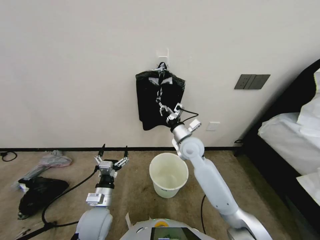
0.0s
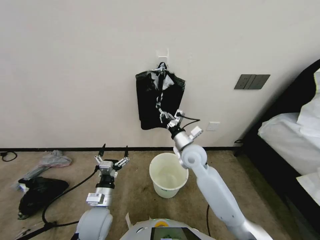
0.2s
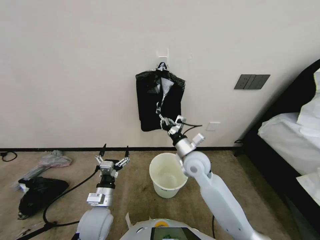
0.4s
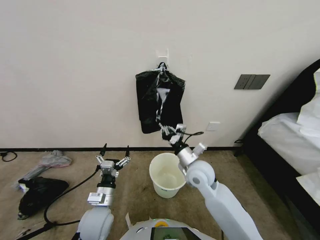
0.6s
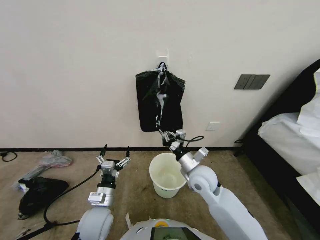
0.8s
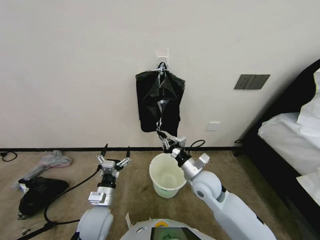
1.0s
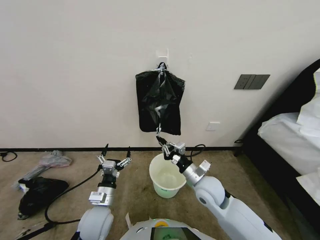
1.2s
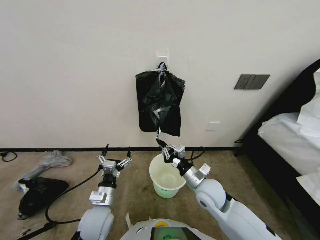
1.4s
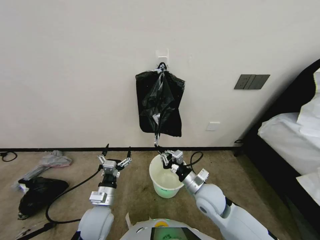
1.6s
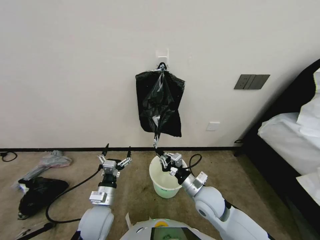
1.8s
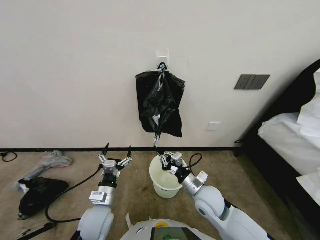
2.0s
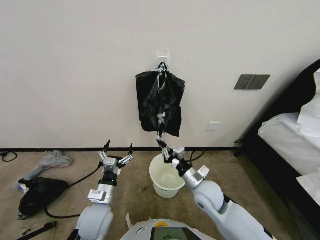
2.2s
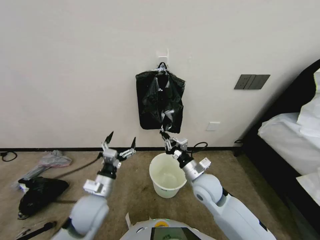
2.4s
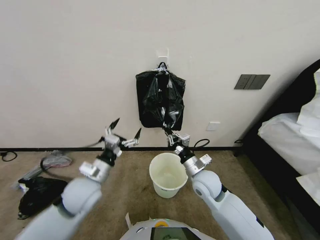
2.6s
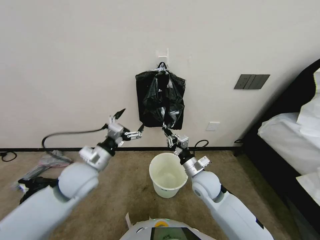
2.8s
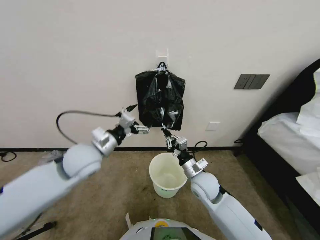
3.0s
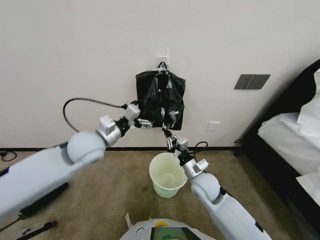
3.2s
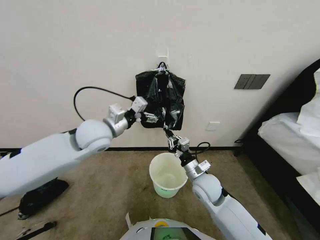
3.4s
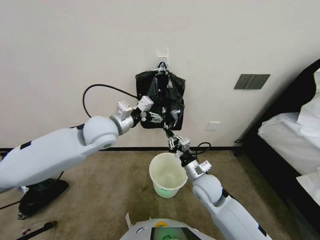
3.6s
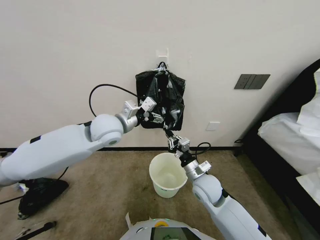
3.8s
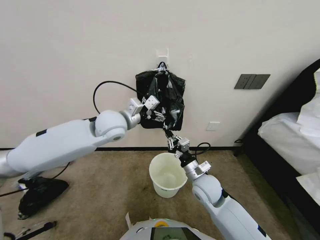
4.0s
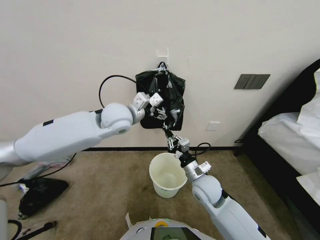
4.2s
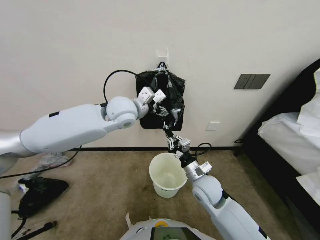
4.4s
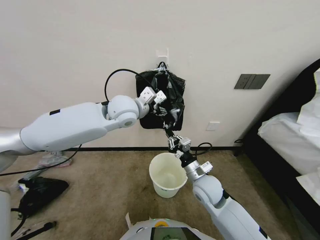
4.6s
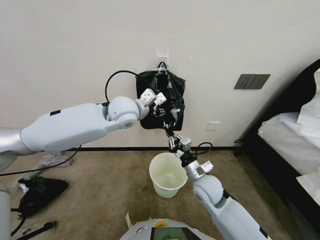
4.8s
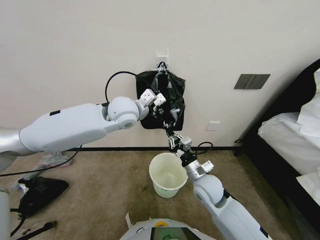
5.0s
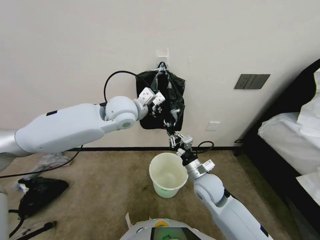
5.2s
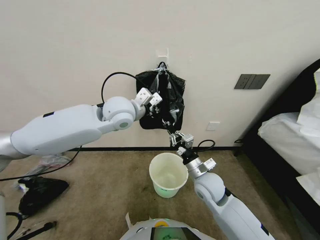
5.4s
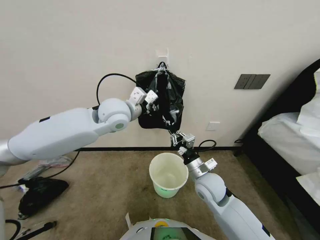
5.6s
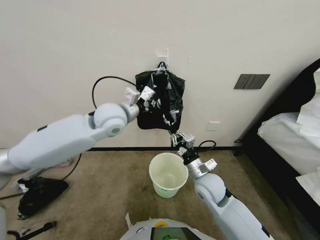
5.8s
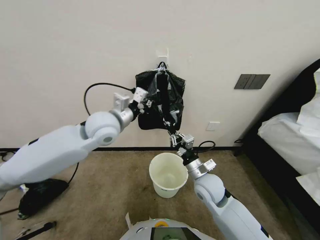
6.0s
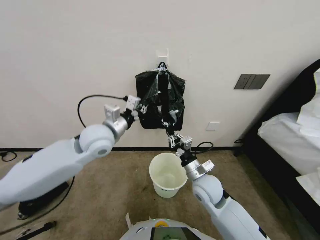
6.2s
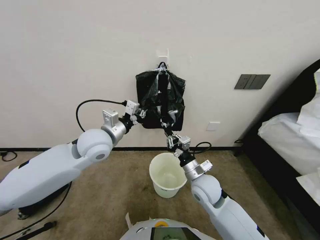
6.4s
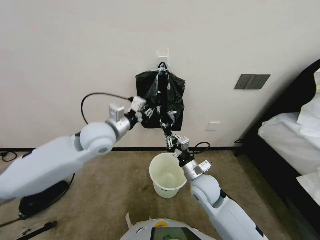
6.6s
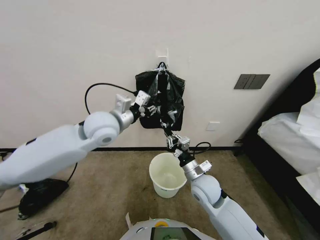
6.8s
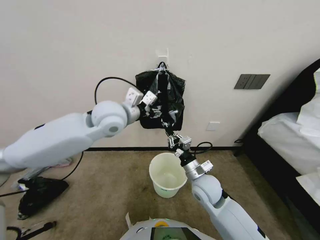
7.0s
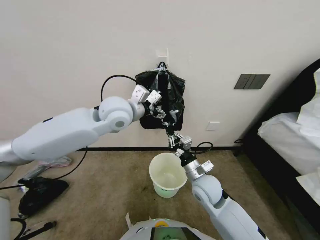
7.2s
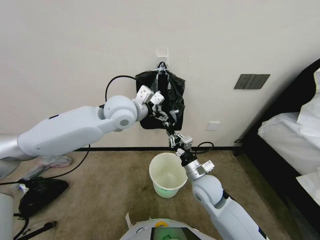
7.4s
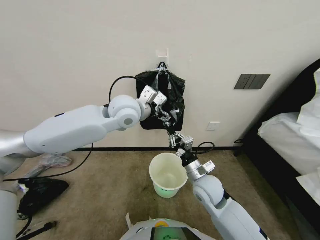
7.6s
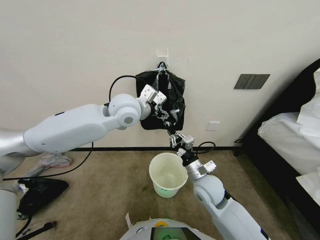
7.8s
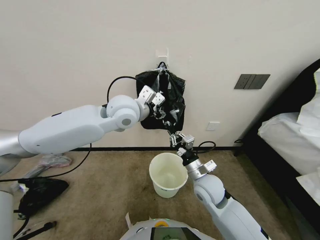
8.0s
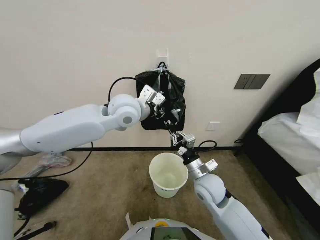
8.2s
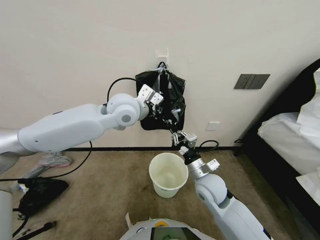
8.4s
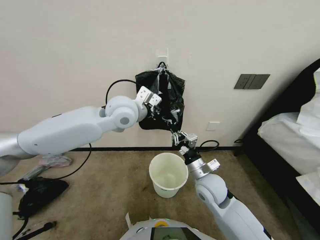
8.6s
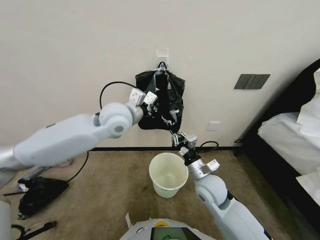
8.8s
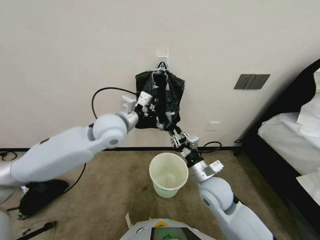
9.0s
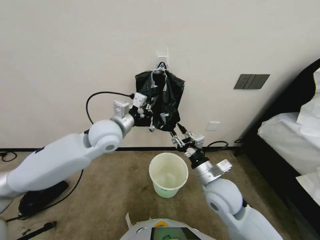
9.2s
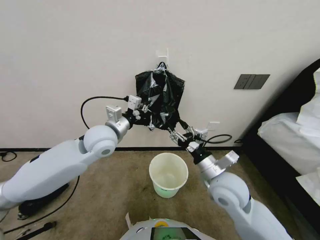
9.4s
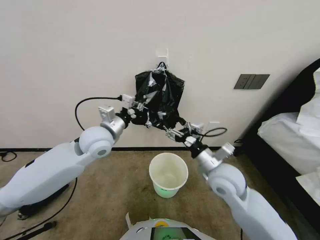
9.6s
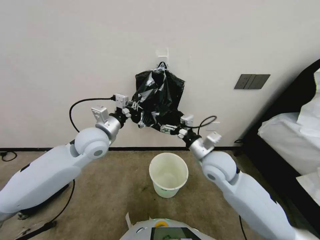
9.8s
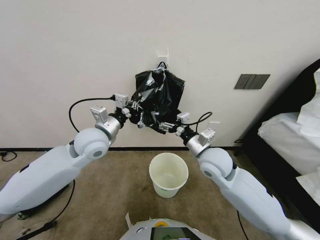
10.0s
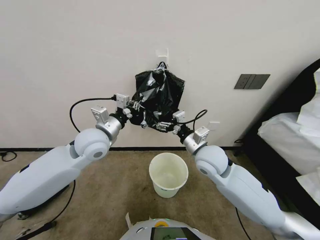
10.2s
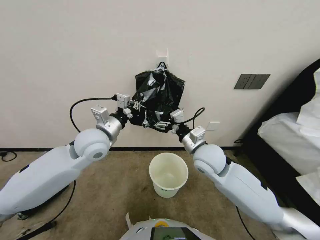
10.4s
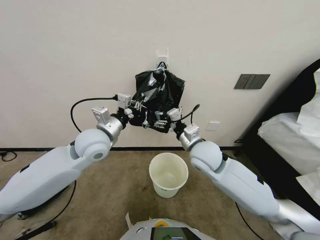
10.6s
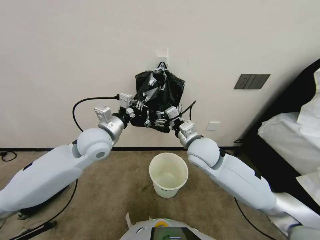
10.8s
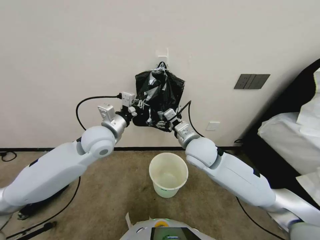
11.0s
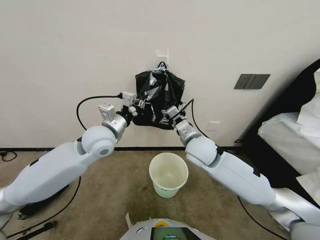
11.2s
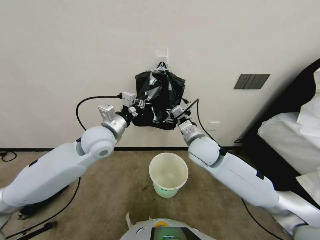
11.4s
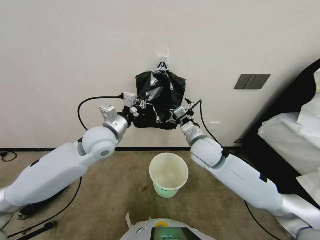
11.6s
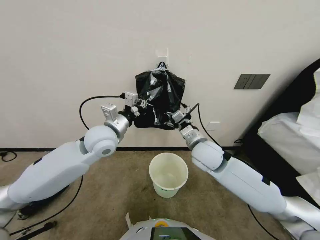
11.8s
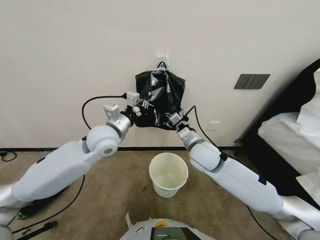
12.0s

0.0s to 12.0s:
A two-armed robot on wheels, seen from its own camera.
Task of the whole recording: Place a trash bag onto the trash bin.
0.0s to 1.6s: The right gripper goes some 20 cm backward and downward.
1.6s to 3.0s: The left gripper moves upward and forward, some 20 cm.
3.0s to 4.4s: The left gripper travels forward, to the right and upward by about 20 cm.
4.4s to 6.0s: The left gripper changes place by some 5 cm, and closes.
6.0s to 7.6s: The left gripper is displaced to the right by about 5 cm, and opens.
7.6s to 9.0s: The left gripper moves about 5 cm, and closes up.
9.0s to 10.4s: The left gripper heads to the left, covering roughly 5 cm. Meanwhile the right gripper travels upward and forward by about 10 cm, and opens up.

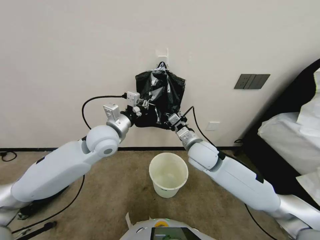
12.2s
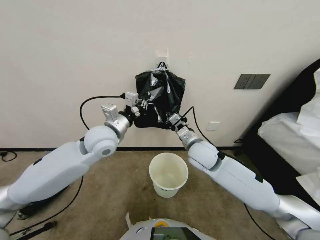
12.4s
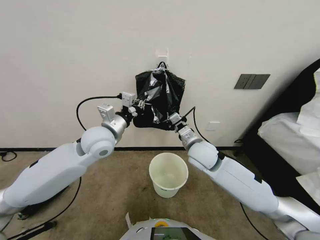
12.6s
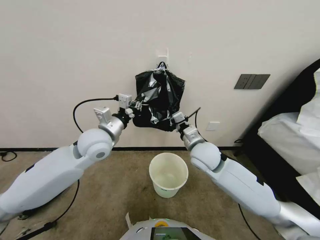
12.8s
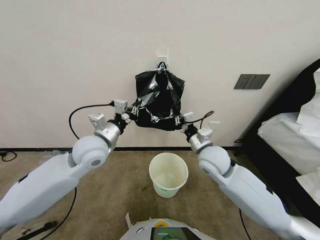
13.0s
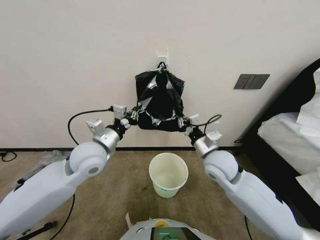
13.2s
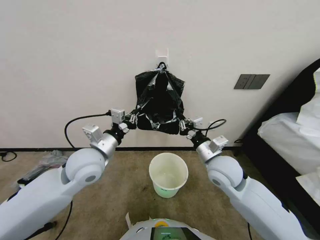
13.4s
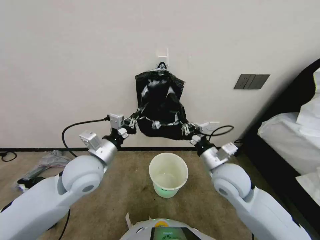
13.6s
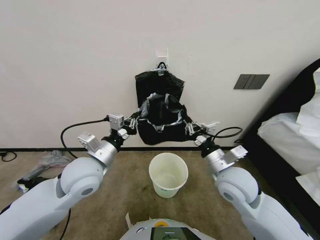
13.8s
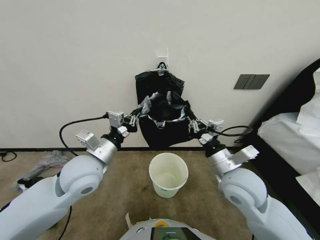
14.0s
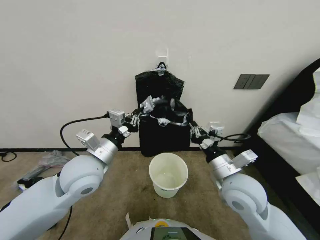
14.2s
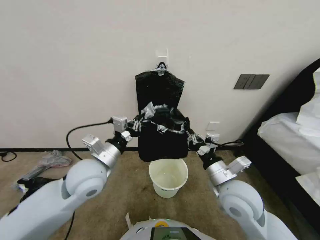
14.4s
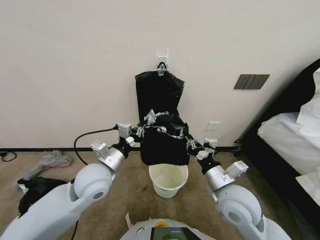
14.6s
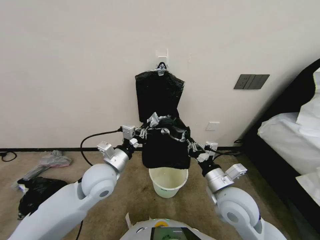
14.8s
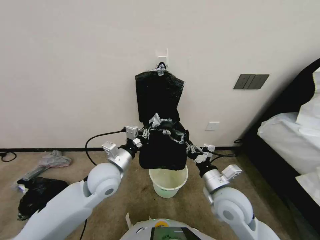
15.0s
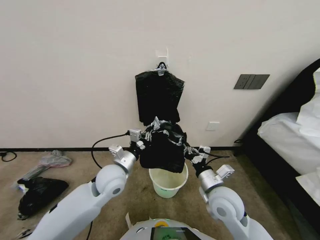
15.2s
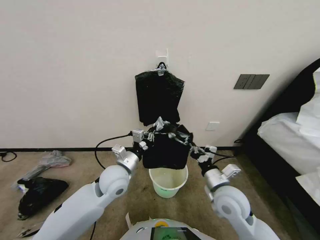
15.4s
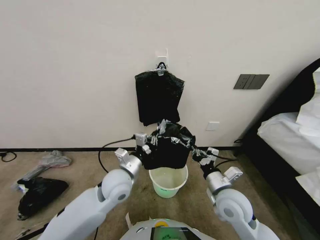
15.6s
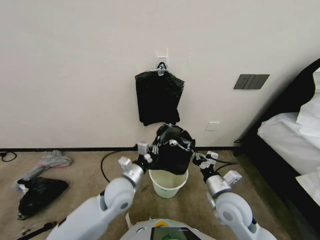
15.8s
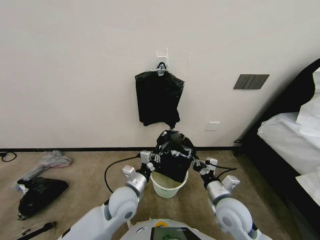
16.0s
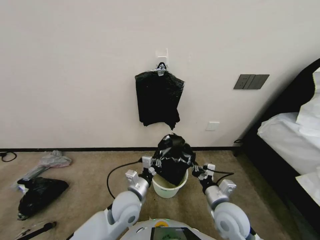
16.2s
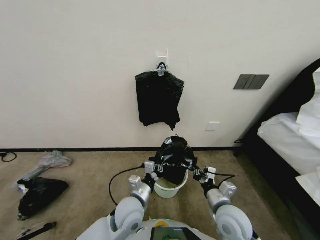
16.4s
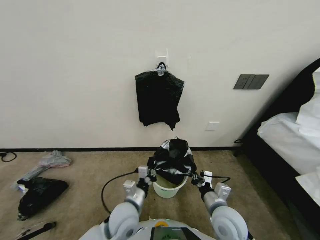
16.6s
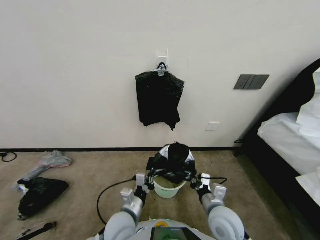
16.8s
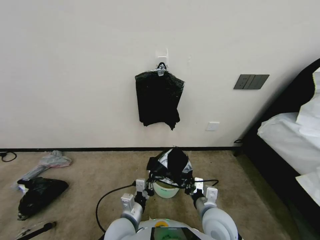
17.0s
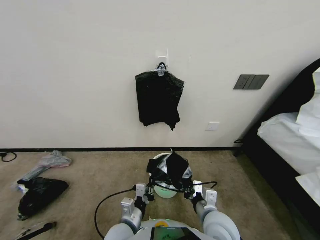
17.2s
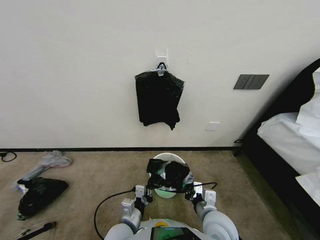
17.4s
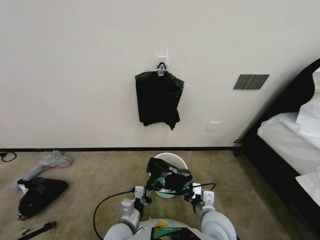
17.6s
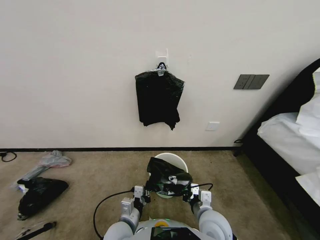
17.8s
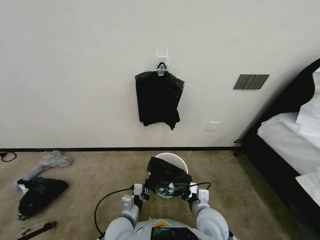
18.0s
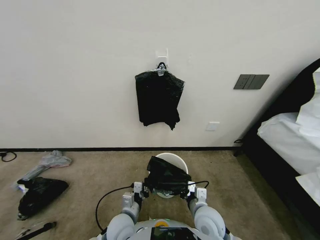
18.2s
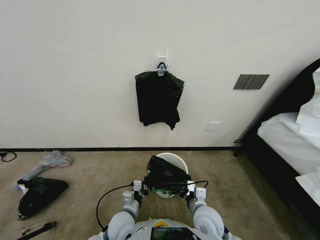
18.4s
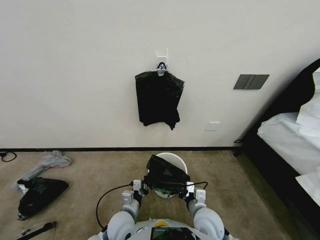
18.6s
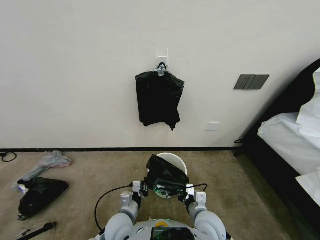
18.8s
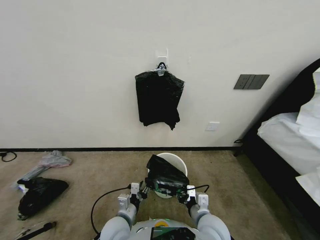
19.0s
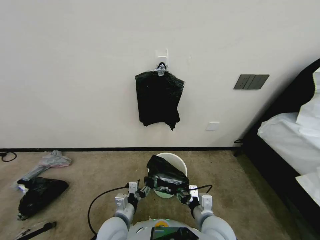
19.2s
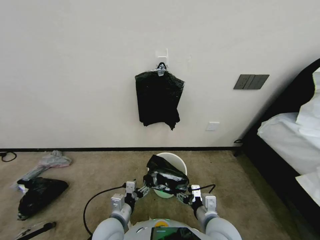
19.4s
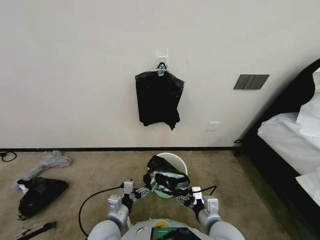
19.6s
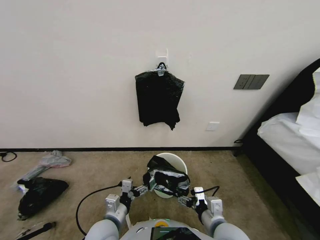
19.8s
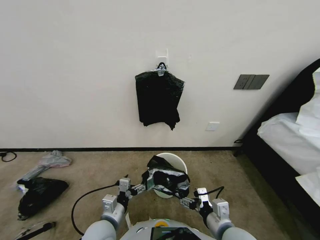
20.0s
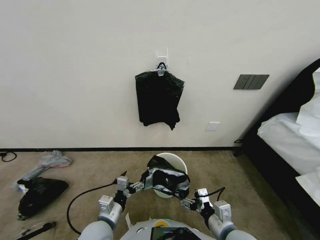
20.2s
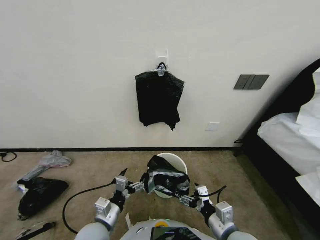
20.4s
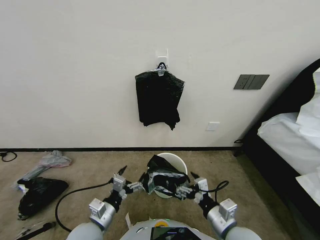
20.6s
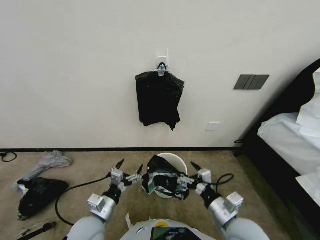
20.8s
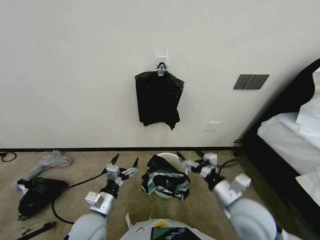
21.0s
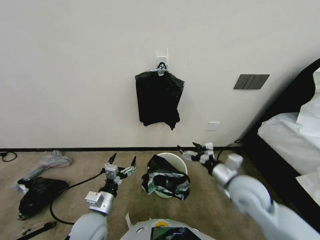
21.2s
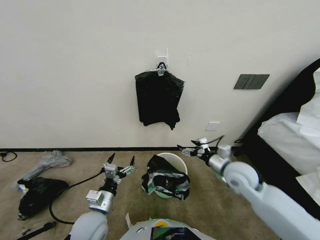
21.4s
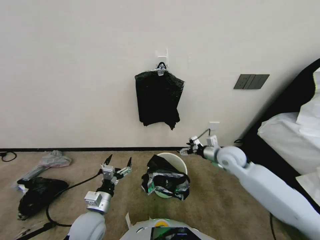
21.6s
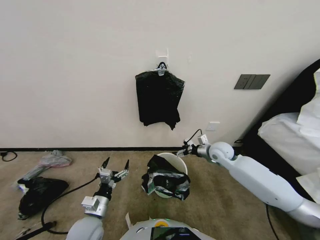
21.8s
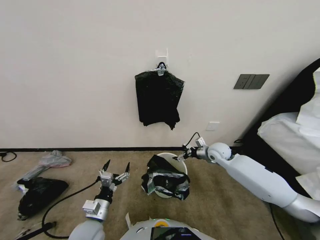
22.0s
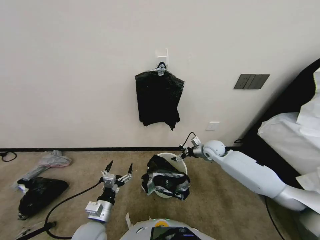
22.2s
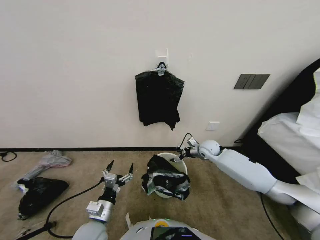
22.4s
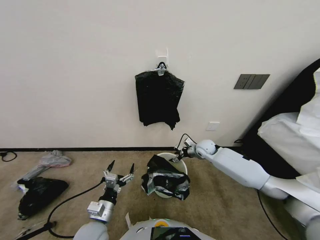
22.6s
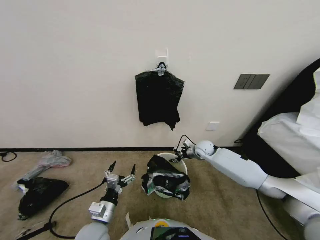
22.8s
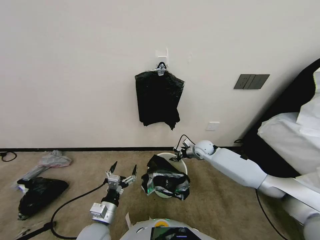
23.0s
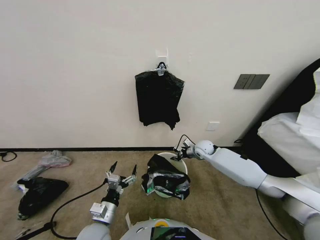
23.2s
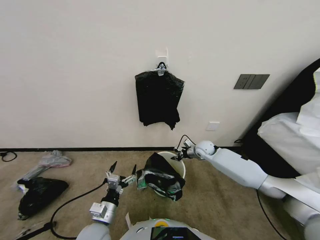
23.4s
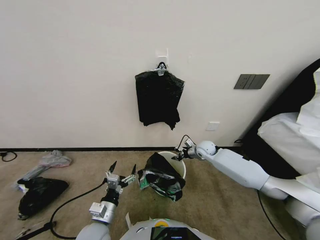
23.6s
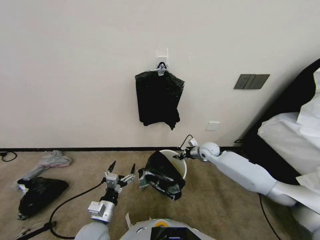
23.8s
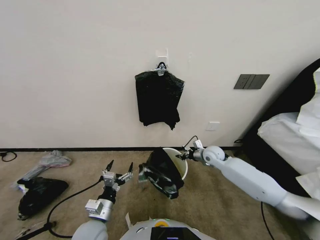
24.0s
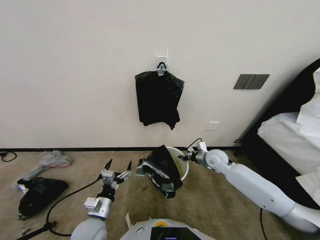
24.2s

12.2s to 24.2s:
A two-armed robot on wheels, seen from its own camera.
Task of the whole recording: Place a trash bag onto the trash bin.
12.2s to 13.8s: The right gripper moves backward and to the right, roughly 10 cm, and closes. Meanwhile the left gripper is displaced backward by about 10 cm.
13.8s to 15.2s: The grippers both shift downward by about 5 cm.
15.2s to 16.6s: The right gripper travels downward by about 5 cm; the left gripper is displaced downward, backward and to the right by some 15 cm.
16.6s to 18.2s: The right gripper heads to the left, covering about 5 cm, while the left gripper heads downward, covering about 5 cm.
18.2s to 19.8s: The left gripper travels upward by some 5 cm, and opens its fingers; the right gripper ends up approximately 5 cm from where it was, and opens up.
19.8s to 21.2s: The right gripper shifts approximately 10 cm upward, forward and to the right.
21.2s to 22.6s: The right gripper moves forward, about 30 cm.
22.6s to 24.2s: The right gripper heads backward, covering about 5 cm, and closes.
